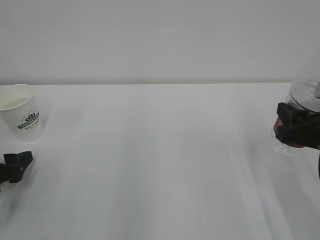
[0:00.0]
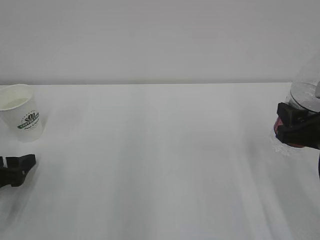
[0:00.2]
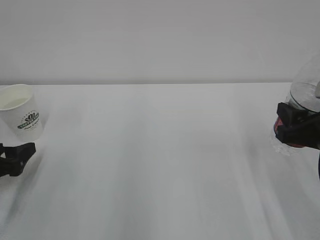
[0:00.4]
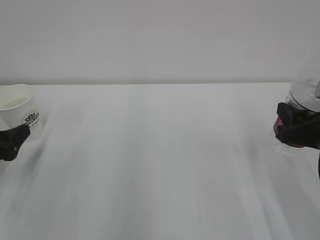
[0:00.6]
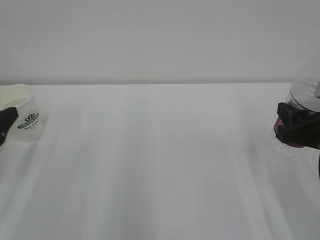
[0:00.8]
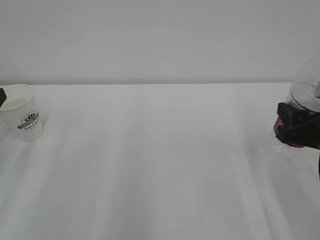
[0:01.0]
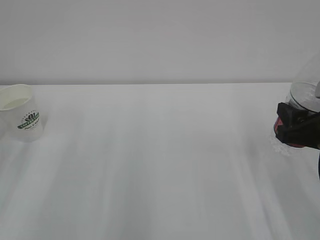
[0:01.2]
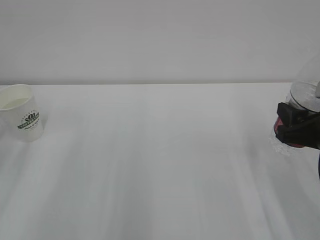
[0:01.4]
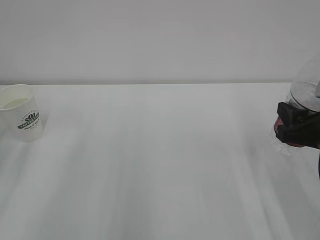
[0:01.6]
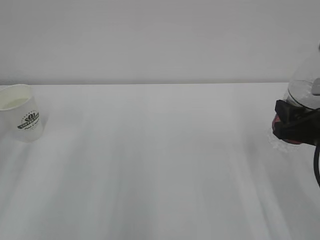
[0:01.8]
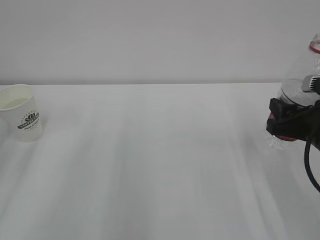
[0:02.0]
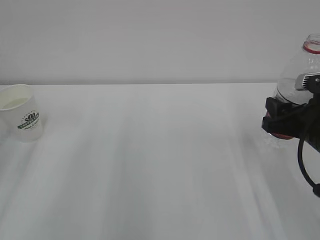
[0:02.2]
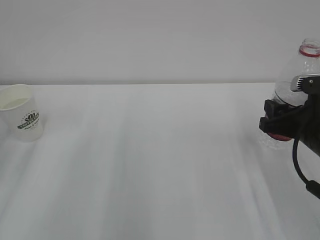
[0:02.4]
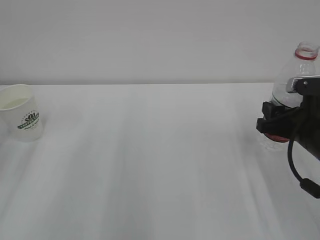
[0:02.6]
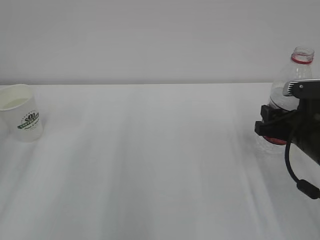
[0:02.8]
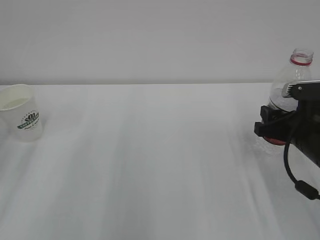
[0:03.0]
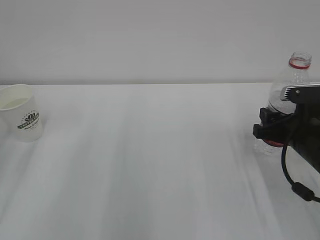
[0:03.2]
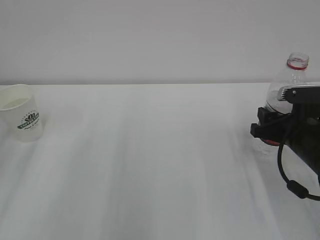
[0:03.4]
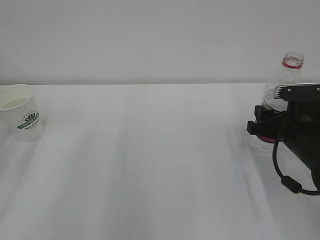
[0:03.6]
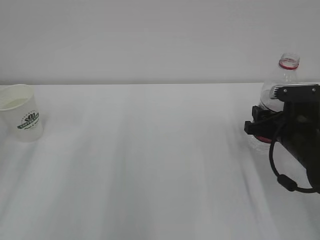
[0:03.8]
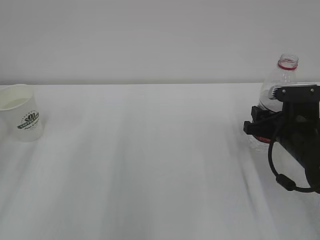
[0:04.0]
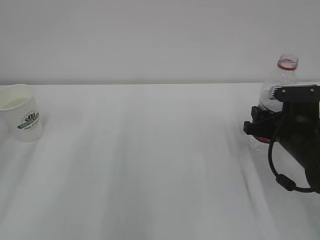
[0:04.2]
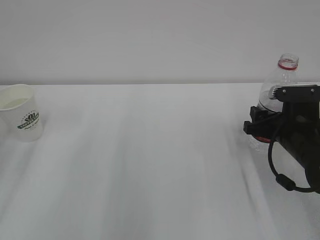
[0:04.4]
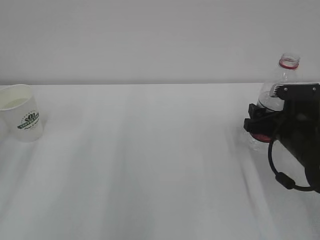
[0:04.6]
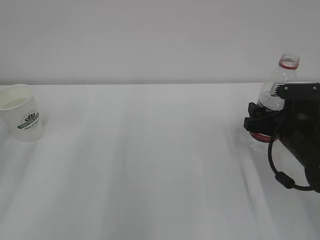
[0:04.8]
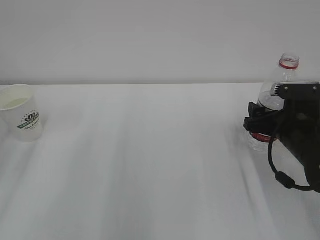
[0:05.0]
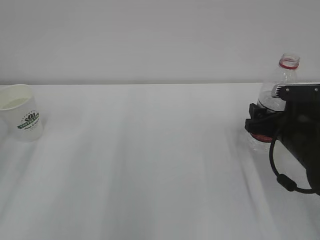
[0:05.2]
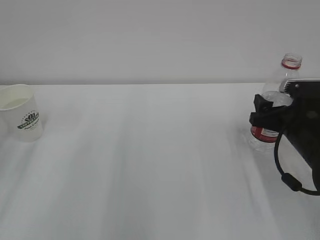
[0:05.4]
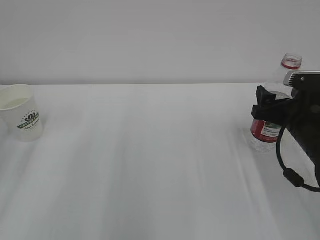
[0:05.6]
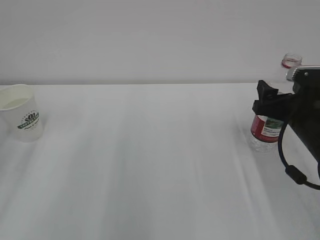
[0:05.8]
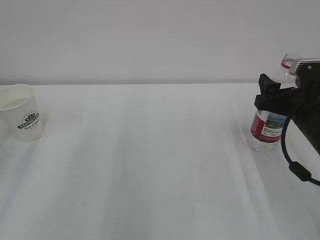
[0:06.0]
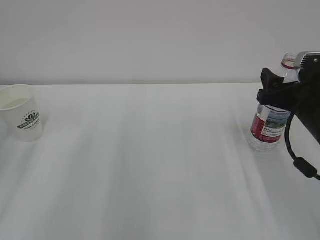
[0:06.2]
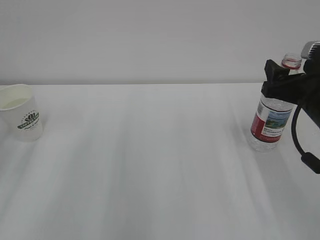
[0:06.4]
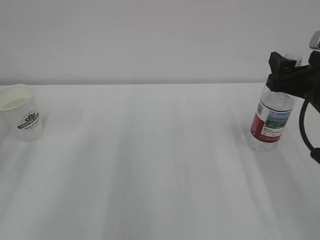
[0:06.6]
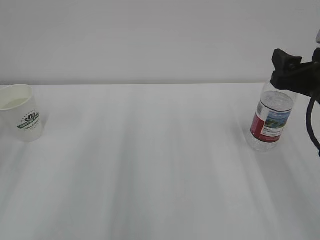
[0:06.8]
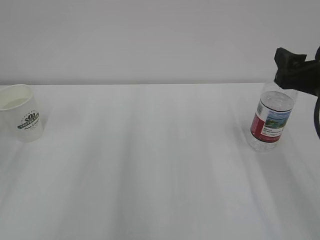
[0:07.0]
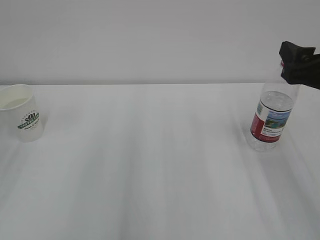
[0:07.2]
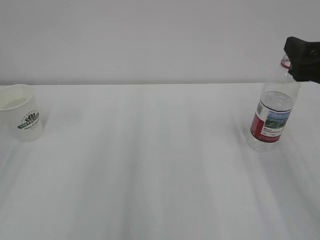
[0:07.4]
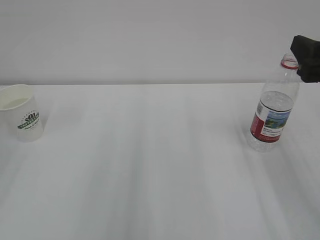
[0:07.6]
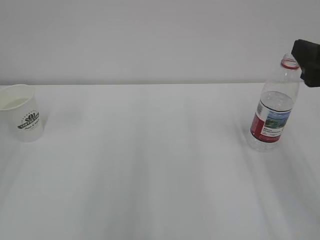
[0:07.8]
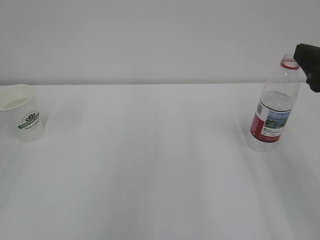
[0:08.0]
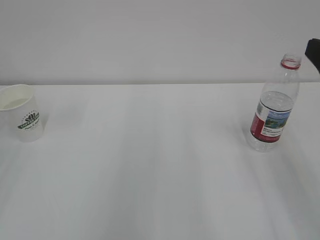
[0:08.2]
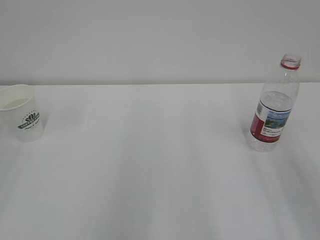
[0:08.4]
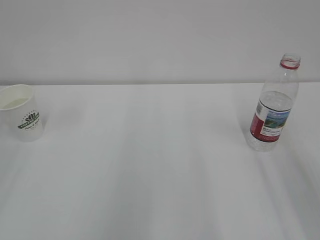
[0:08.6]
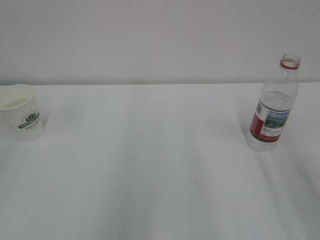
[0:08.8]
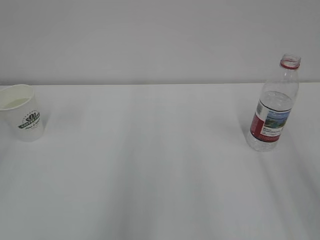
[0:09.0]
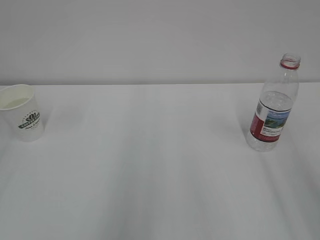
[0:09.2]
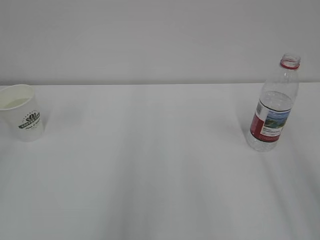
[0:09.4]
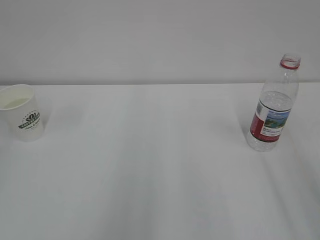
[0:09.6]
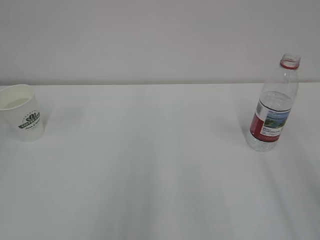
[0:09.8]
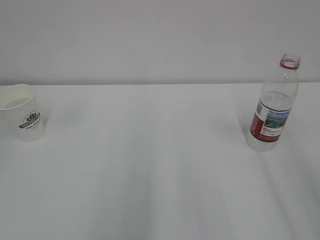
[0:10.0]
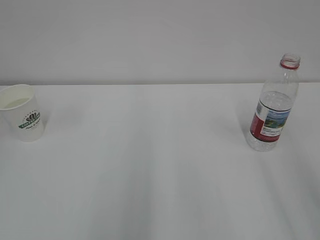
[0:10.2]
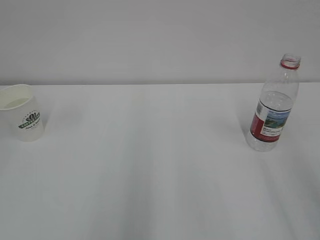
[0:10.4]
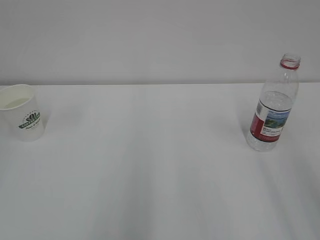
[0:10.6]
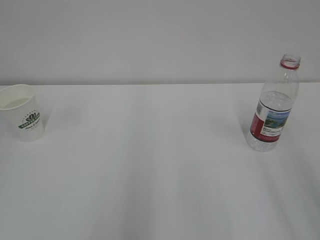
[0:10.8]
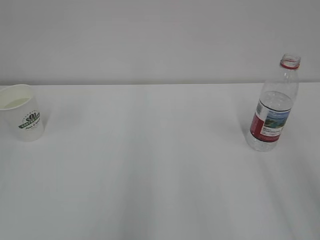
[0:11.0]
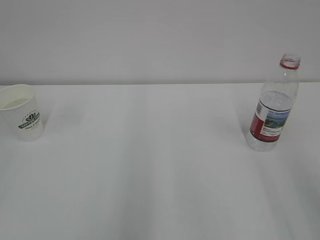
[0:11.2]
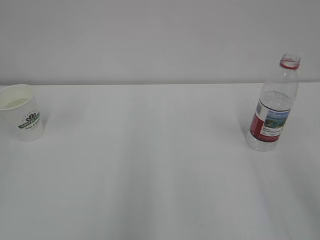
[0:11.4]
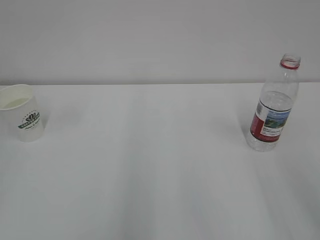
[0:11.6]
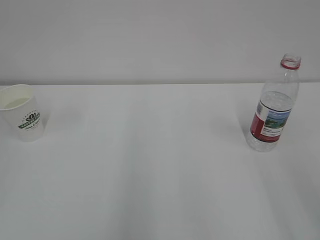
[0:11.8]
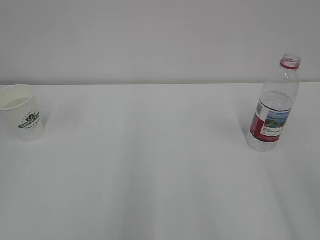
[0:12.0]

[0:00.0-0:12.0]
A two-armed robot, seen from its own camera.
0:00.0 to 0:01.6: The left gripper moves upward, about 15 cm, and closes.
0:01.6 to 0:03.0: The right gripper changes place by about 5 cm.
0:03.0 to 0:04.4: The grippers move only a little.
0:04.4 to 0:06.0: The right gripper ends up some 5 cm from where it was, and opens up.
0:06.0 to 0:07.6: The right gripper travels upward and backward by roughly 15 cm.
0:07.6 to 0:09.0: The right gripper shifts some 10 cm backward, and closes up.

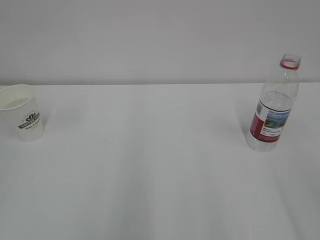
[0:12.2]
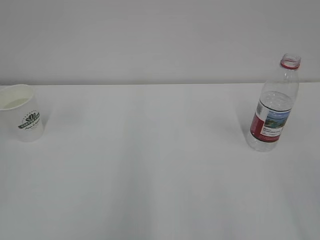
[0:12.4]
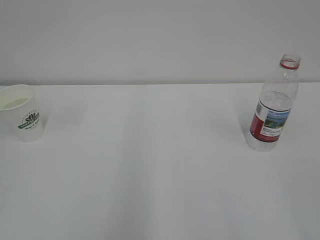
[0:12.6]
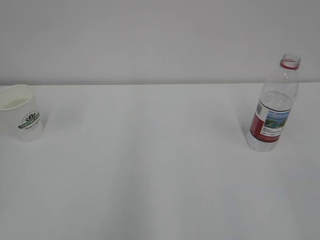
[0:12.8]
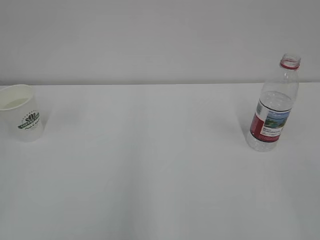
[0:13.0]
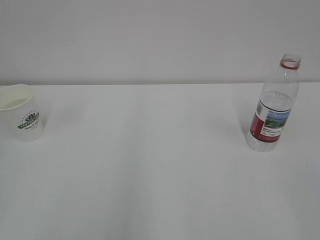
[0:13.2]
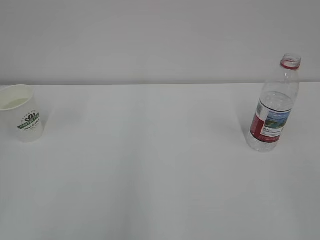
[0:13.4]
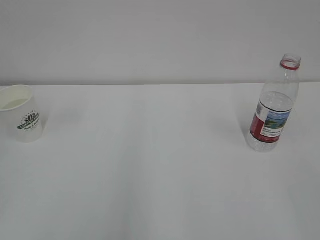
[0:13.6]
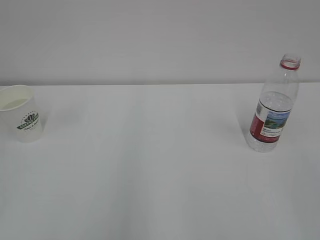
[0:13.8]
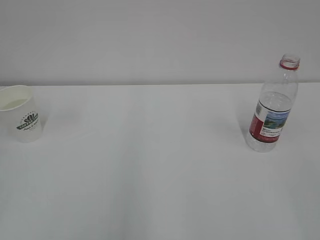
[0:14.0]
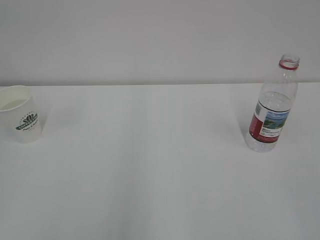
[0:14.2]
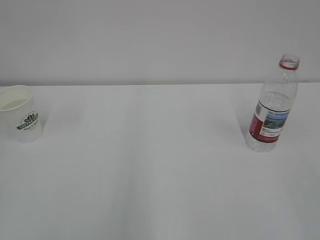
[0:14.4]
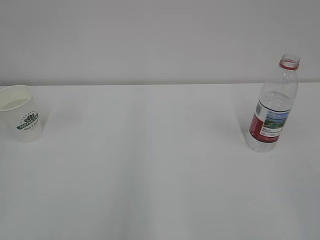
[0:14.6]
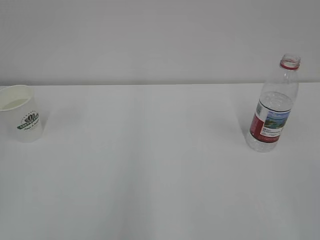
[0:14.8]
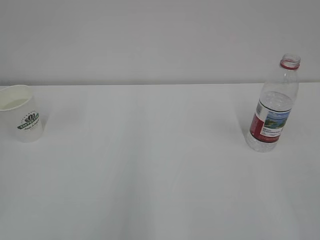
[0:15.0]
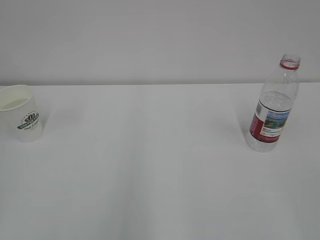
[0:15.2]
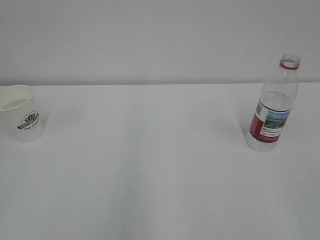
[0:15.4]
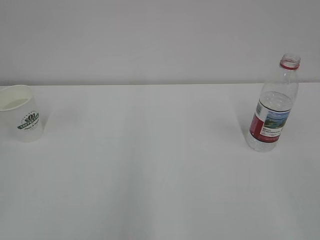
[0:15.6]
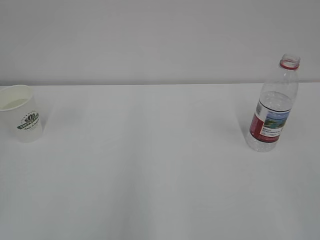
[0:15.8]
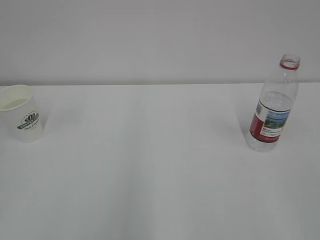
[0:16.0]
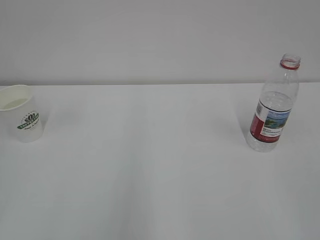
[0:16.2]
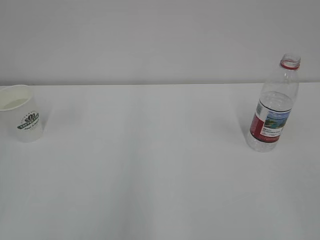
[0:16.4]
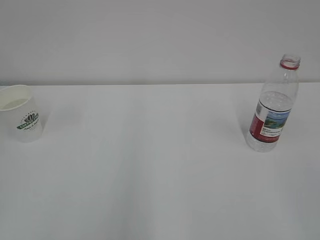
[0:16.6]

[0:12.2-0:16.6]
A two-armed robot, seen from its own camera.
0:15.2 to 0:16.6: The two grippers keep their place.

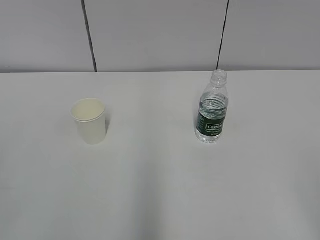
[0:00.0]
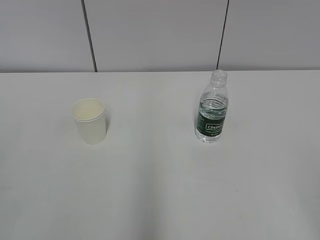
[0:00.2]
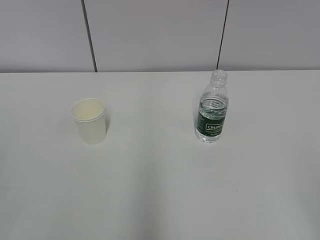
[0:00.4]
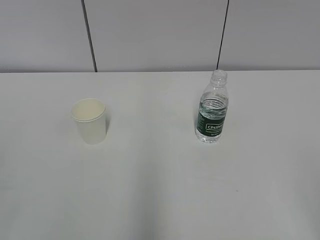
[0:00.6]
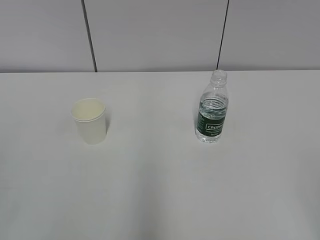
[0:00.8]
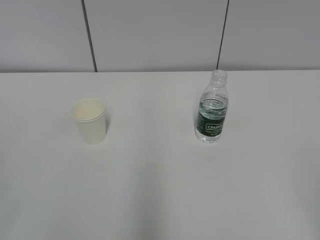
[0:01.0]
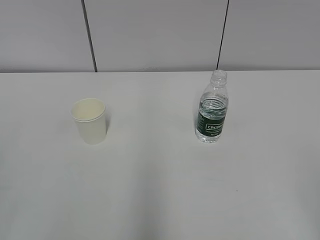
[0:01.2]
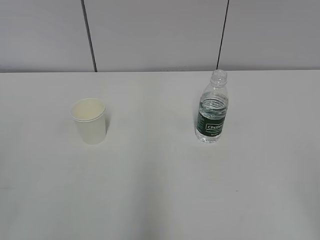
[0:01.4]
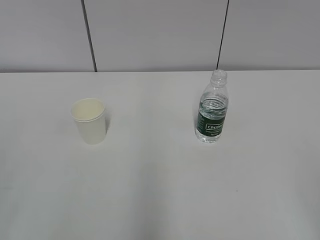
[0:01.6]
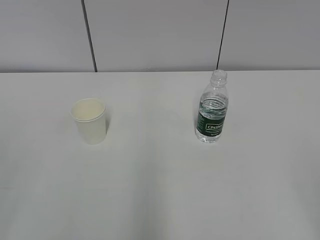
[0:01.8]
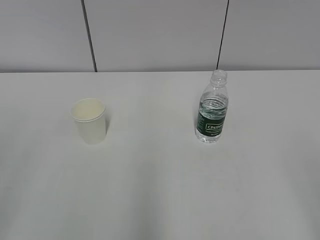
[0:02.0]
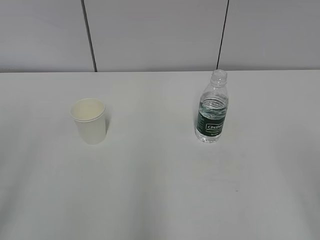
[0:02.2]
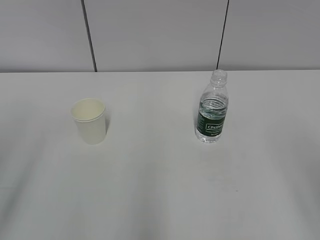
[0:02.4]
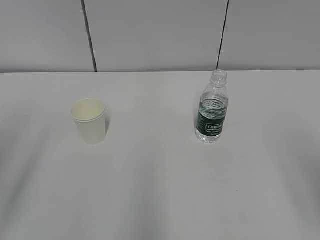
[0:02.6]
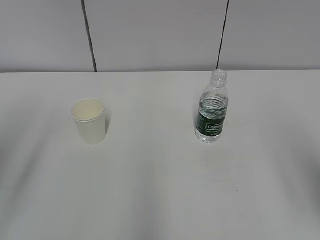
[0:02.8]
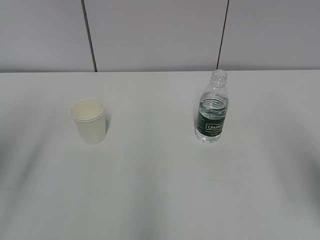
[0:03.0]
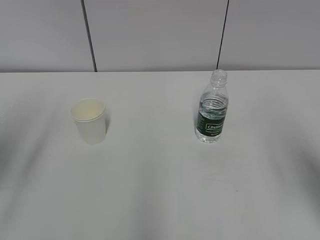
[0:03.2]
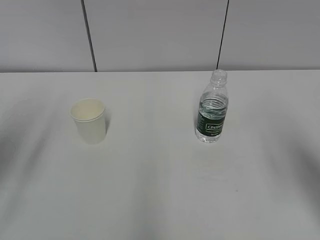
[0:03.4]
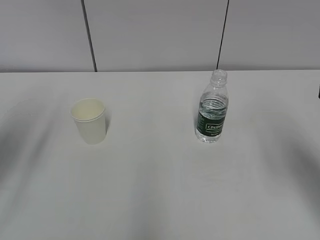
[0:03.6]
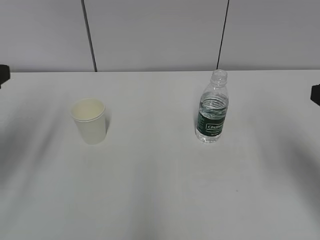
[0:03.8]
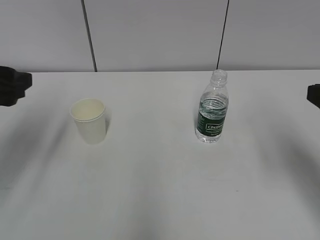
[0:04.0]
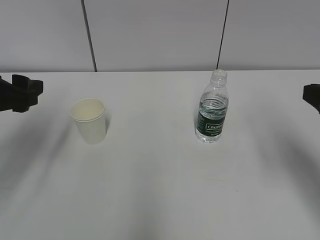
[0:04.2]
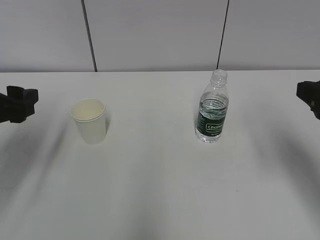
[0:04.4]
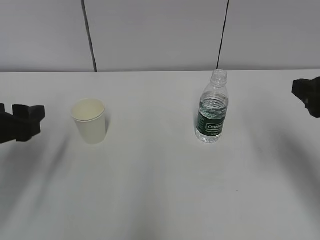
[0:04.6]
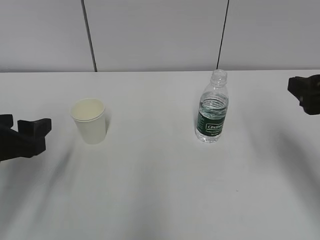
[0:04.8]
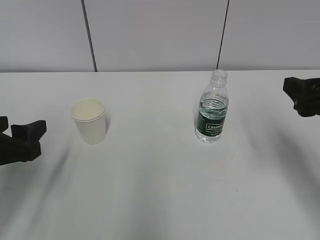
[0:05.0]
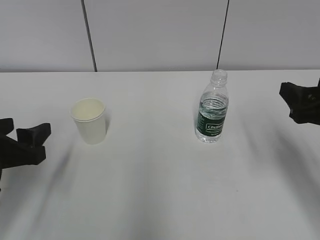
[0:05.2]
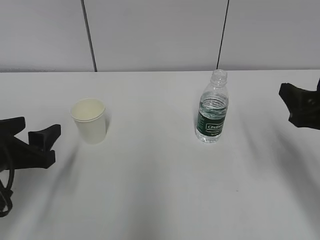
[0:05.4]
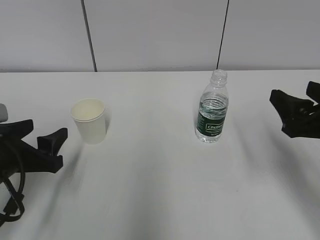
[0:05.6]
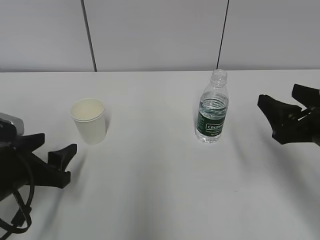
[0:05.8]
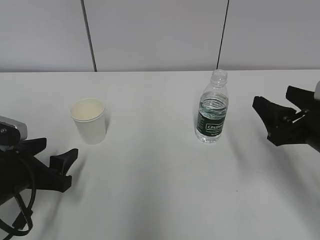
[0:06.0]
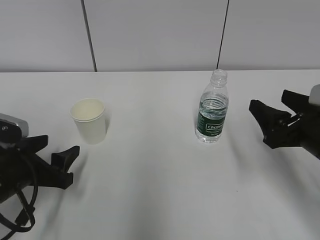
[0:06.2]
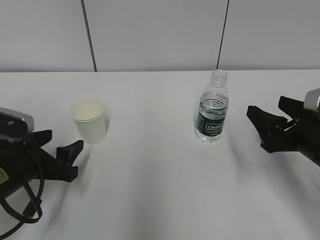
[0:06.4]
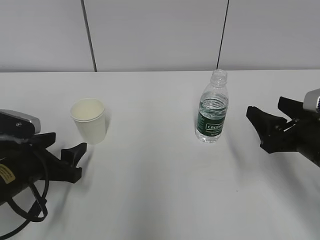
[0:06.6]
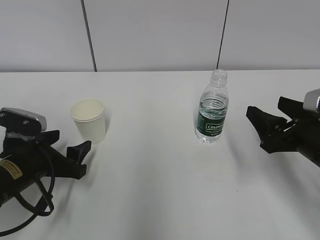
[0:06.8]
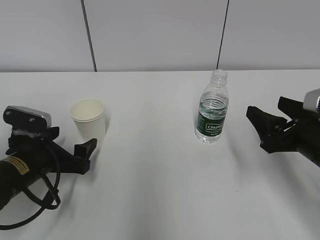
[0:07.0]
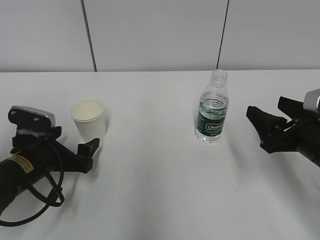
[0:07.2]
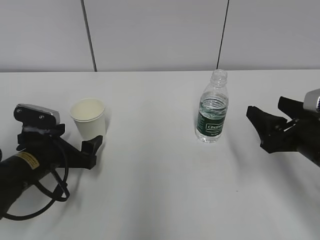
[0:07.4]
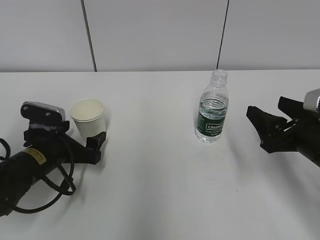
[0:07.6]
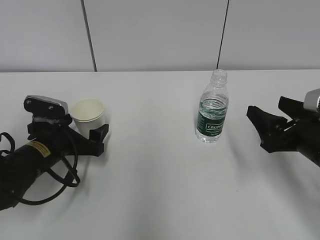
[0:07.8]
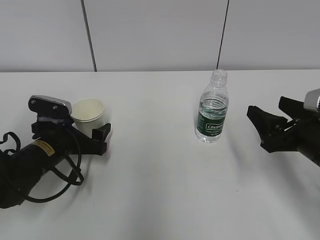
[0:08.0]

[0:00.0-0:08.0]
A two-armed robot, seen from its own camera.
0:01.6 to 0:03.2: The two grippers go roughly 15 cm forward. The left gripper opens.
0:03.2 to 0:04.8: The right gripper travels forward and downward by some 10 cm; the left gripper shifts approximately 15 cm downward.
0:04.8 to 0:06.4: The two grippers go approximately 10 cm downward.
0:06.4 to 0:08.0: The left gripper is displaced forward by approximately 10 cm.